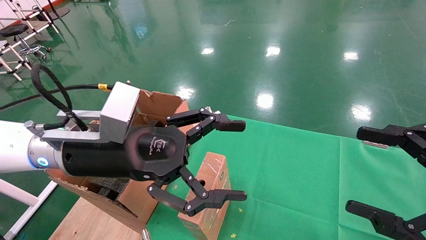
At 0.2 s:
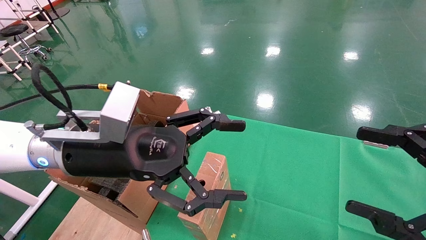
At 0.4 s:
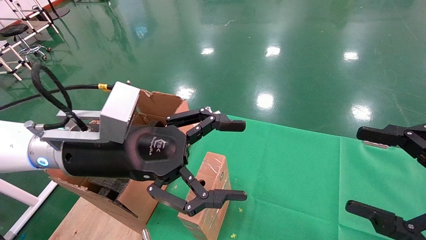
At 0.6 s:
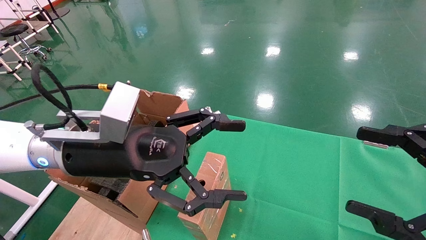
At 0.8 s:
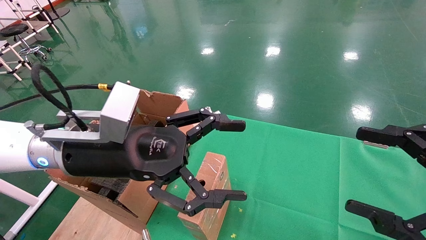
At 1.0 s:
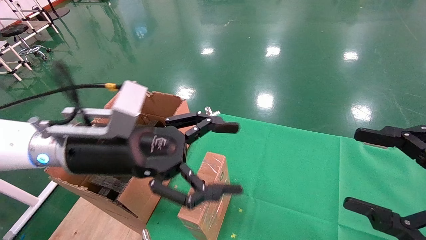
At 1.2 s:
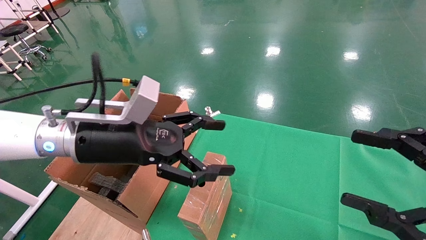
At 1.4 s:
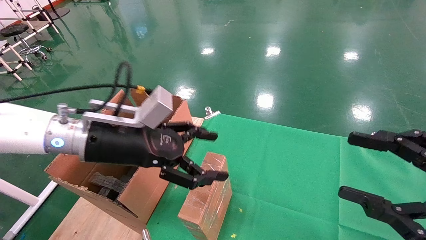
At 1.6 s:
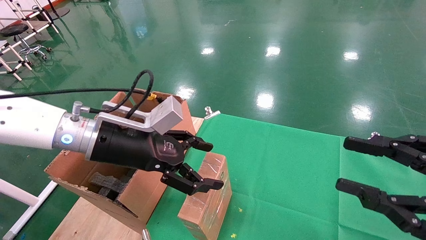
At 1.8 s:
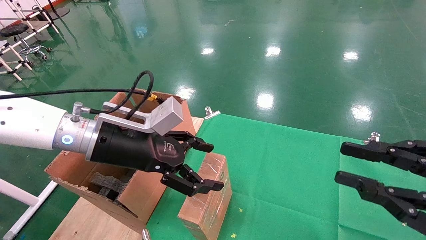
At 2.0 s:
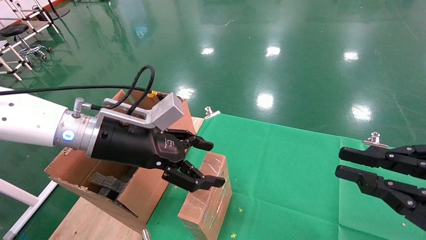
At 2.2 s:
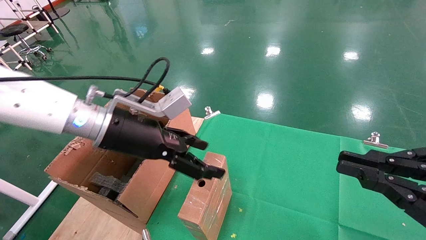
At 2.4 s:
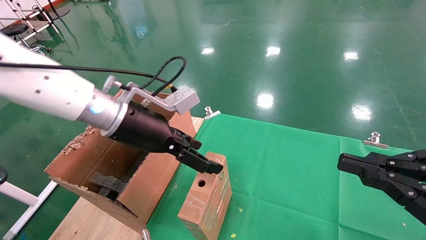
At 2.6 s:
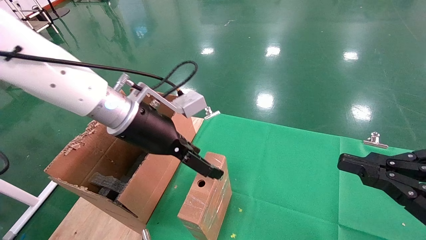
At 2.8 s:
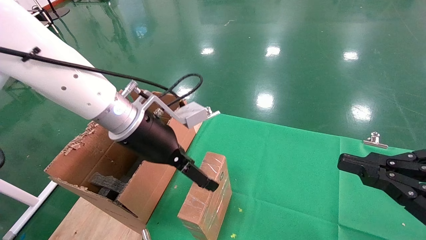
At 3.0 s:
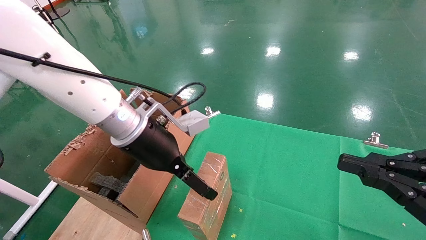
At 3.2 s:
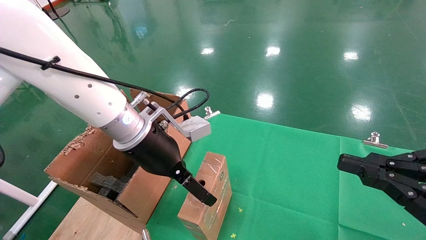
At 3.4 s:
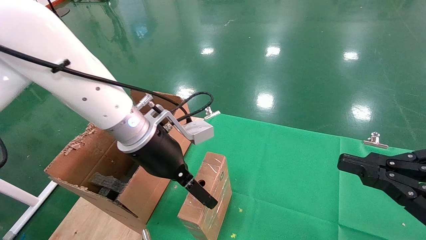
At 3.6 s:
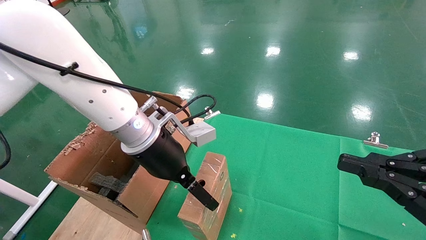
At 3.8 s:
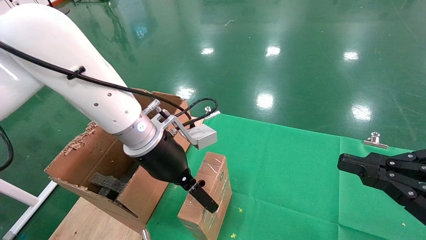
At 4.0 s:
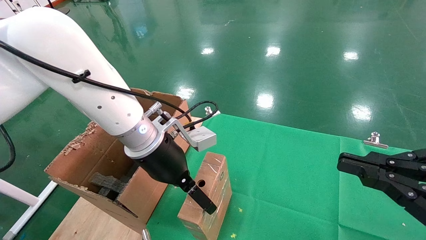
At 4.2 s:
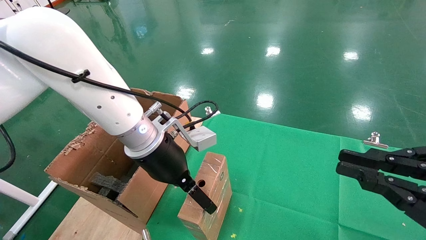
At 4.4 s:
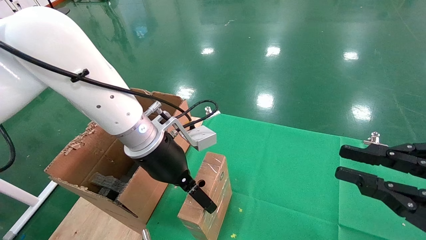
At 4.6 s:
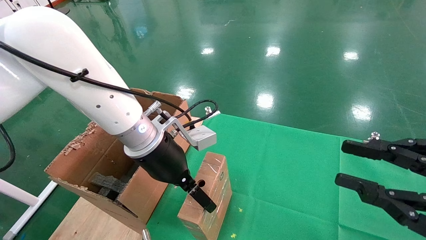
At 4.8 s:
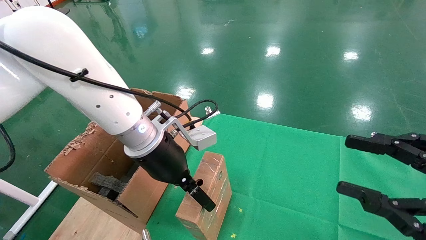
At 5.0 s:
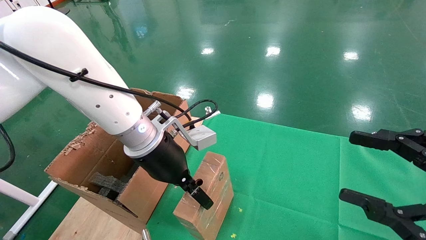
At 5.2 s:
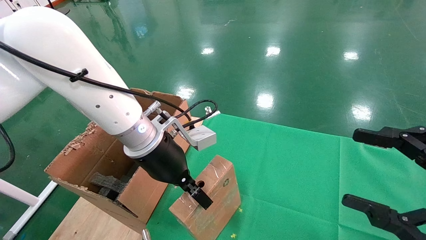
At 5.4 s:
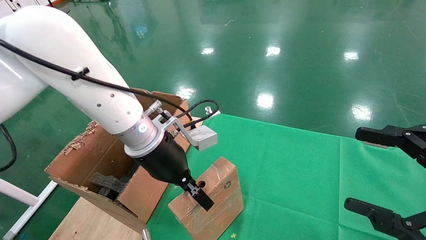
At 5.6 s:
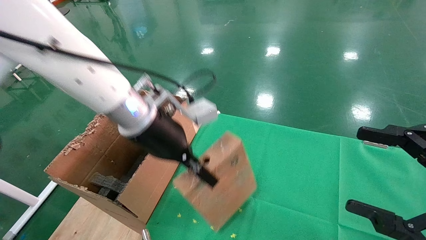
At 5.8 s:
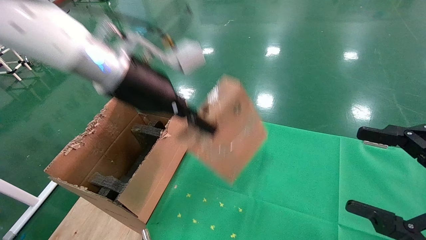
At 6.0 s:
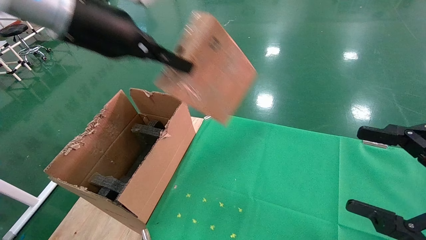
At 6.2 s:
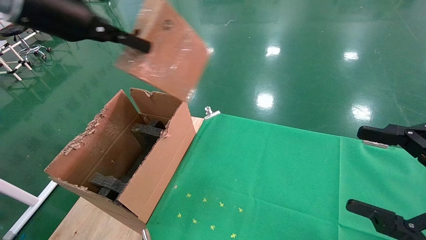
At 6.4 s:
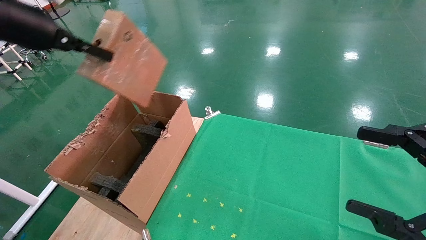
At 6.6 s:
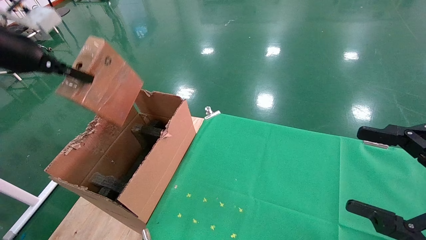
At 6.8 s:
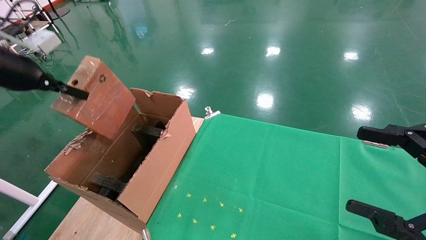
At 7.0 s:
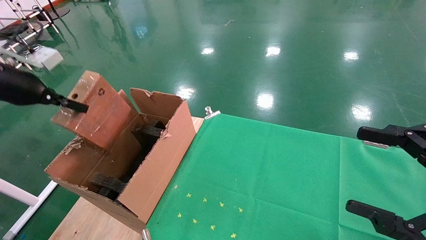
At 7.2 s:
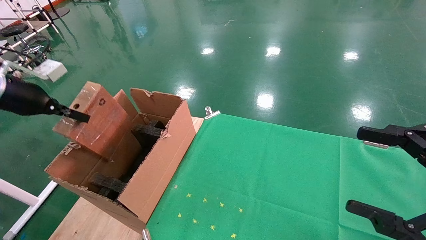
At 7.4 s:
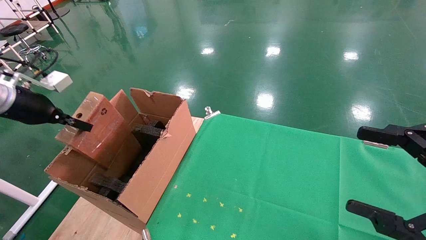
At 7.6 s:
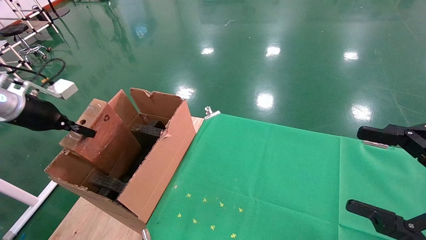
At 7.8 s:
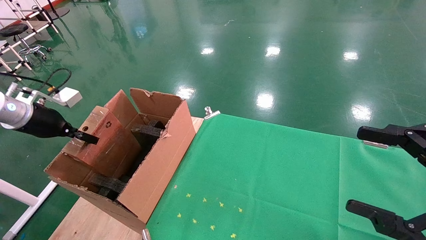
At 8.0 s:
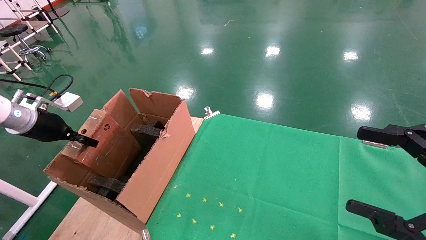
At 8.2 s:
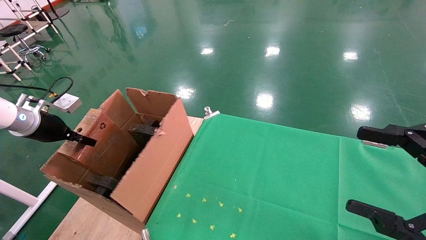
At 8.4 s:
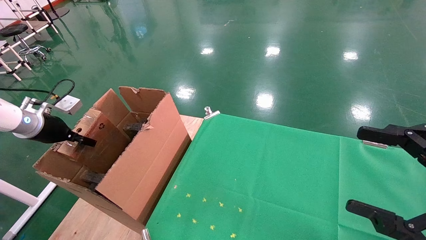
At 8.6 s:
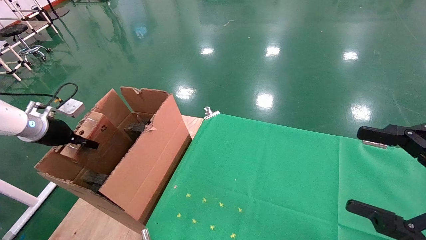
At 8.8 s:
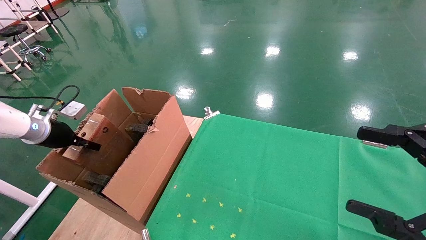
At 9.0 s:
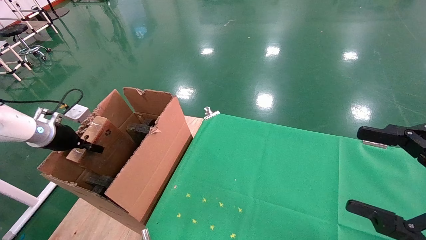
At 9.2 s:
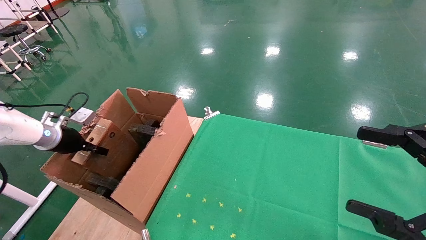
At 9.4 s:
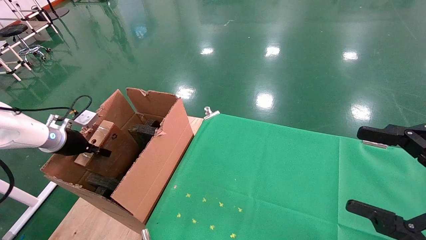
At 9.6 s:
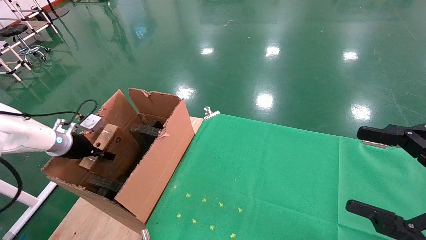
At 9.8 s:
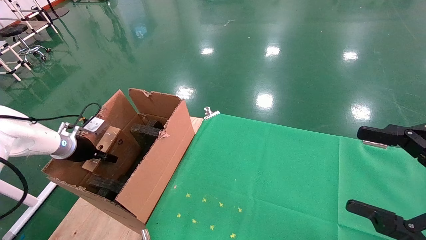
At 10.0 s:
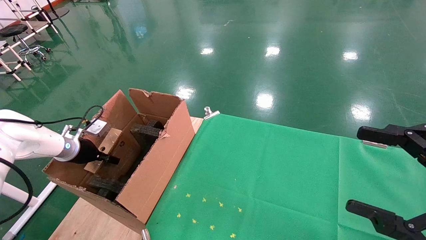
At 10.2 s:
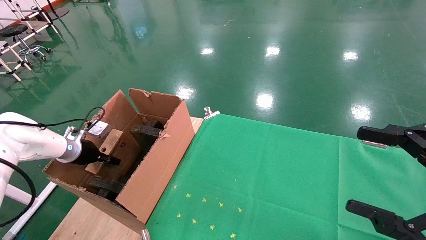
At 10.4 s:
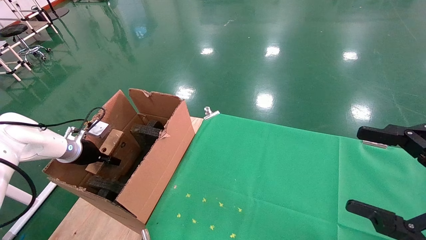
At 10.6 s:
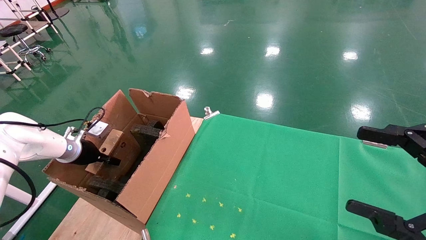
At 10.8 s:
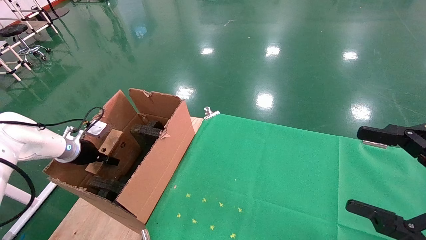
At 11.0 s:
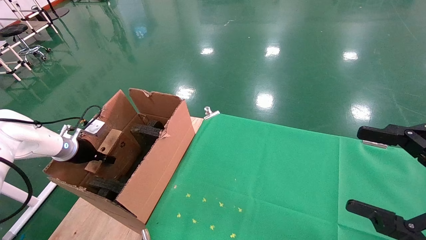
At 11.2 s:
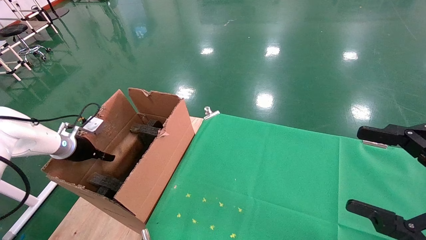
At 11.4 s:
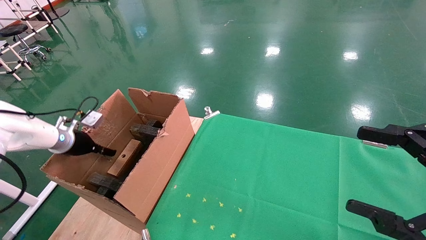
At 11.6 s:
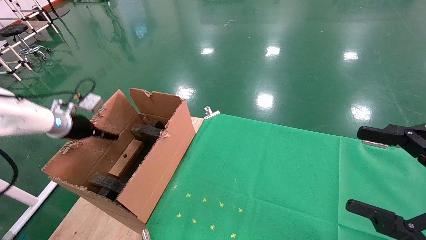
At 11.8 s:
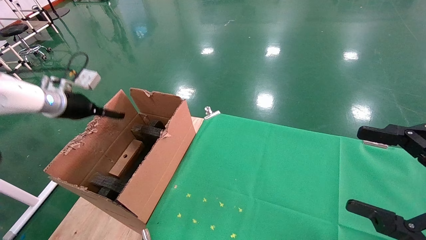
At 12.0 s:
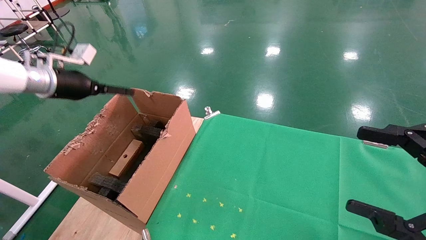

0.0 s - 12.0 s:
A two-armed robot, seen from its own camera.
Task of the whole recording: using a robotic arm to pick up a cardboard box and palace it the carton.
Step, 1.0 s - 5.0 s: Pick up the mouse and the power cord paper box.
0.0 s - 1.6 s: The right gripper closes its fingers.
1.6 s - 3.0 s: The right gripper closes up, while the left gripper moves to the right, approximately 5 cm.
3.0 s - 4.4 s: The grippers make only small movements.
4.4 s - 6.0 s: The left gripper moves upward and to the left, roughly 20 cm, and closes up, while the right gripper opens its fingers.
6.0 s - 7.6 s: The left gripper heads to the left and downward, covering about 30 cm.
7.6 s - 9.0 s: The left gripper goes about 10 cm downward.
9.0 s - 10.4 s: The left gripper goes about 5 cm downward.
10.4 s - 12.0 s: The left gripper moves upward, some 20 cm, and opens.

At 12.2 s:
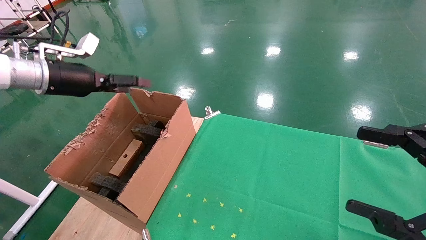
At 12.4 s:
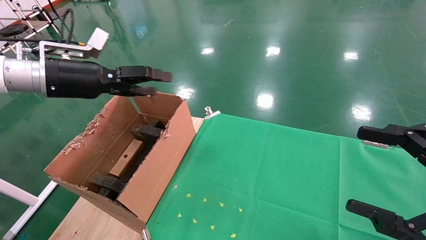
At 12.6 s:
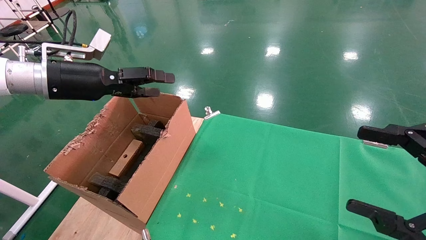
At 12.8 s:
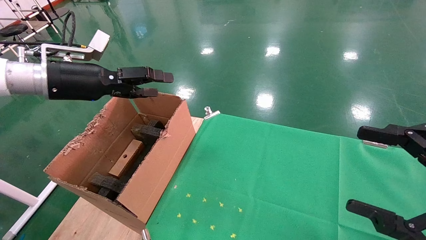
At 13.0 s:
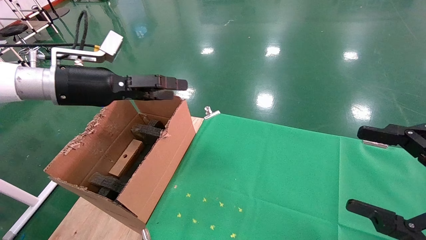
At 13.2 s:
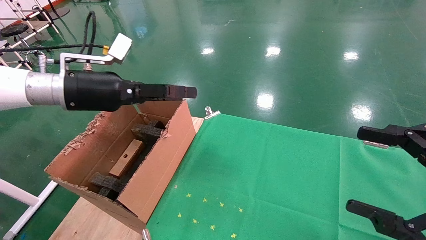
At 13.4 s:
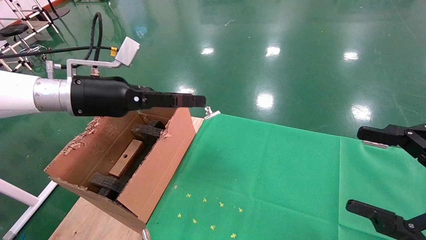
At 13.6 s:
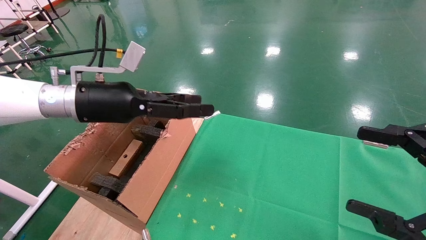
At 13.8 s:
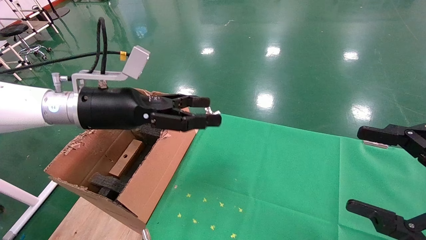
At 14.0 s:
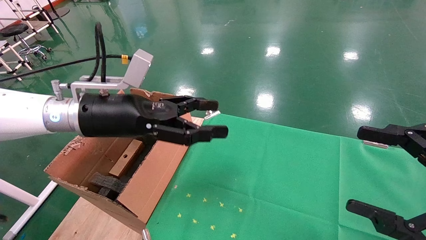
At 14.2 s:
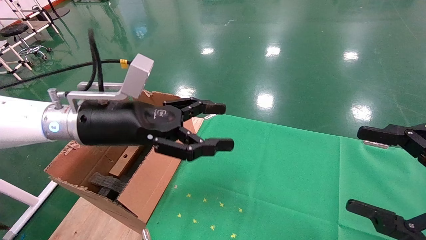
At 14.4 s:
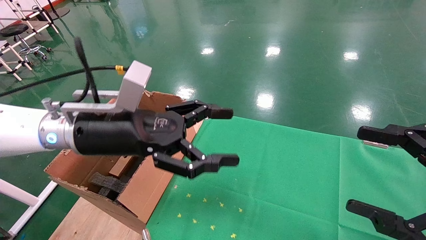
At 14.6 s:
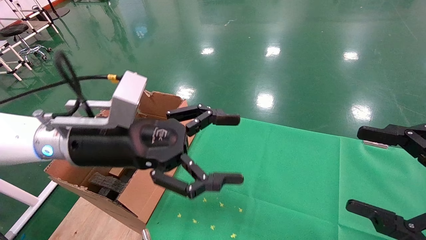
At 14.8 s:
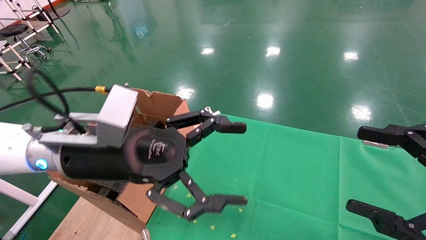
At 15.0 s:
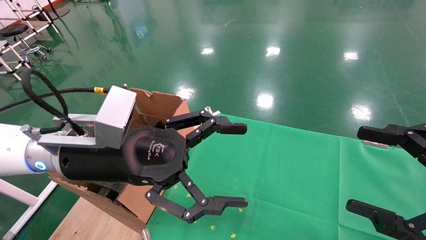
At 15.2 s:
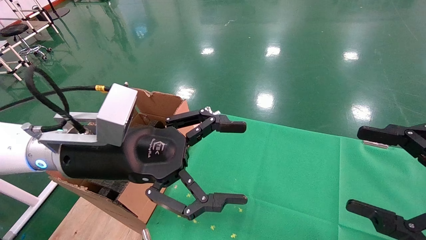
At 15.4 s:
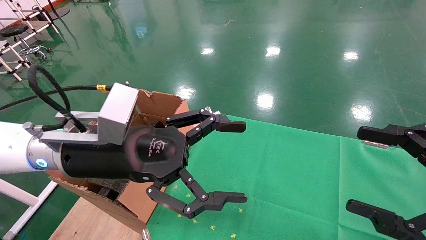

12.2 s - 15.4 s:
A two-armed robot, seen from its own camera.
Task of the whole recording: using a robotic arm to pick up a cardboard box and palace it the carton.
12.2 s - 13.8 s: The left gripper travels to the right by about 15 cm.
13.8 s - 15.4 s: The left gripper heads backward and to the right, covering approximately 10 cm.
